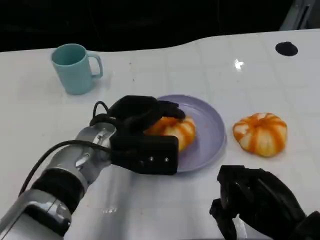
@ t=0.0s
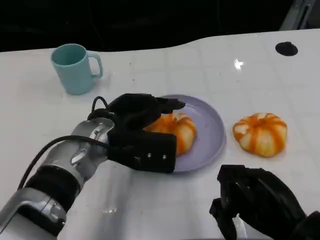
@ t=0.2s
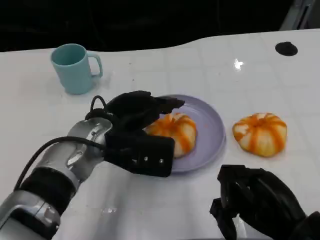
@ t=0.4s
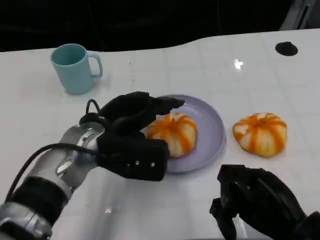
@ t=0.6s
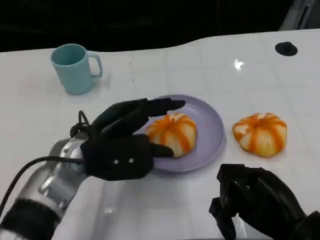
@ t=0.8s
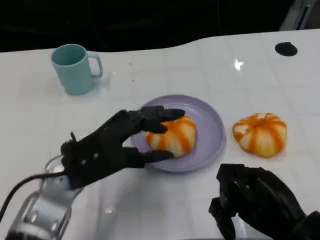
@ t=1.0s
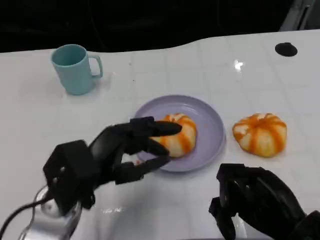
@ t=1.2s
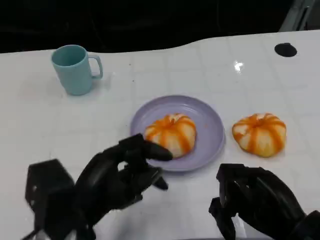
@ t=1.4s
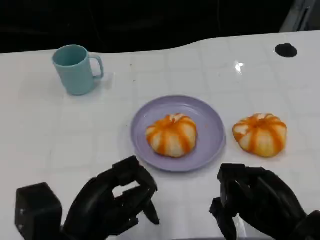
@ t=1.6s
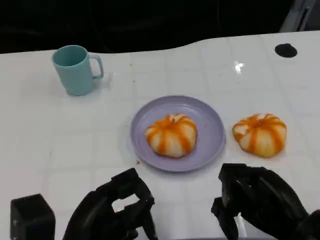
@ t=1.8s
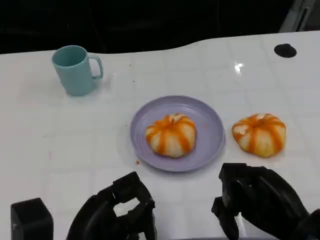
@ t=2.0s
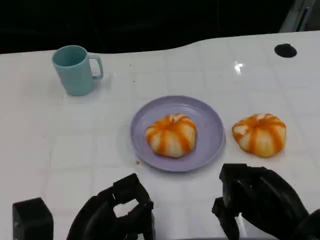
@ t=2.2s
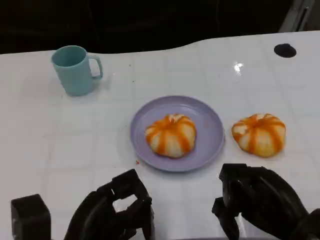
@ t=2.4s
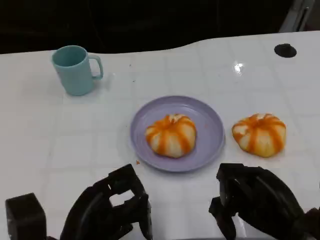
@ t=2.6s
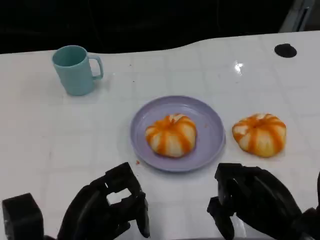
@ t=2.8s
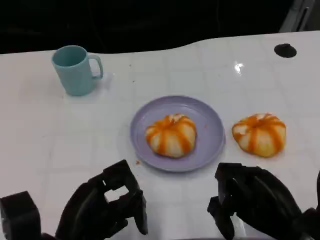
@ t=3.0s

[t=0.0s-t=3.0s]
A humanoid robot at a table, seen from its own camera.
Task of the whole recording: Grasp the bread from the table and place it into the plate.
t=0.0s to t=1.6s: The left hand travels backward and to the left by about 15 cm.
t=1.6s to t=3.0s: There are only small adjustments of the hands.

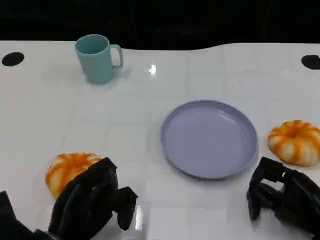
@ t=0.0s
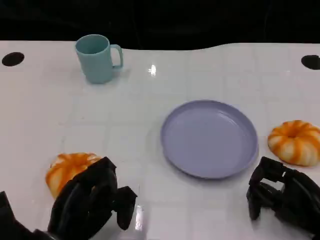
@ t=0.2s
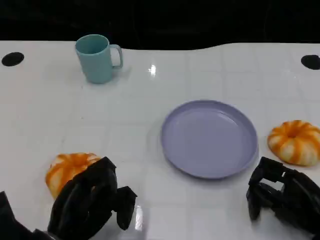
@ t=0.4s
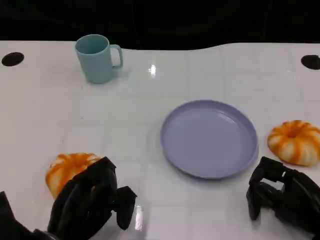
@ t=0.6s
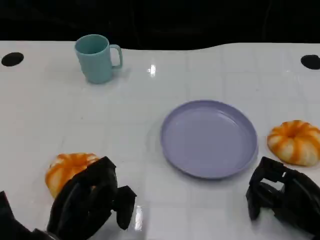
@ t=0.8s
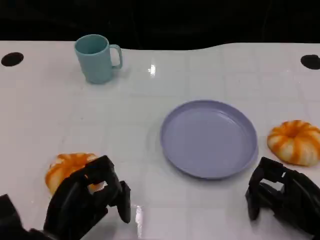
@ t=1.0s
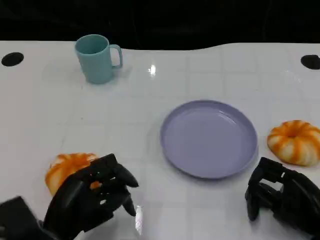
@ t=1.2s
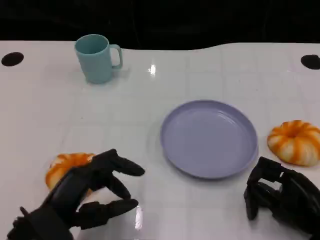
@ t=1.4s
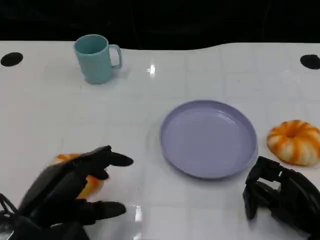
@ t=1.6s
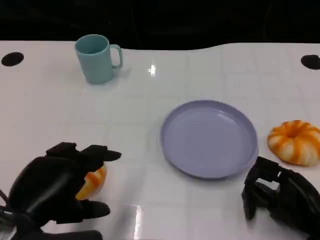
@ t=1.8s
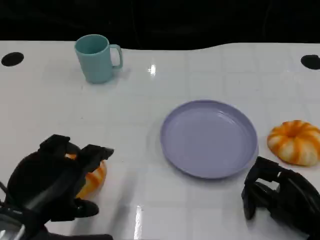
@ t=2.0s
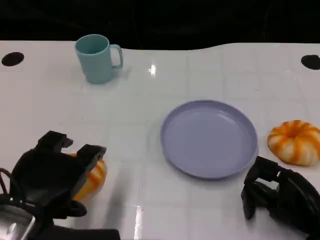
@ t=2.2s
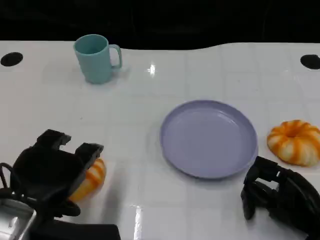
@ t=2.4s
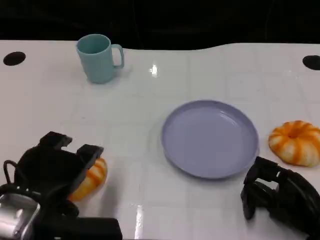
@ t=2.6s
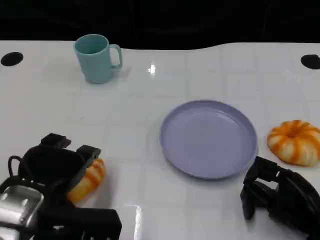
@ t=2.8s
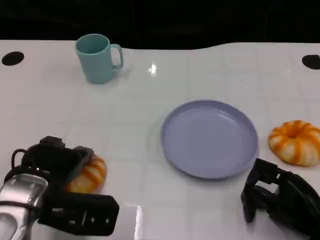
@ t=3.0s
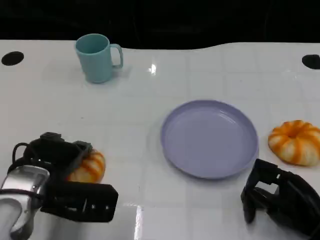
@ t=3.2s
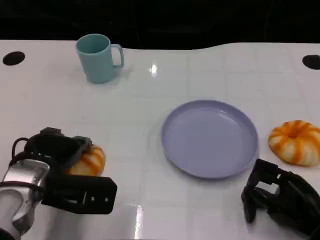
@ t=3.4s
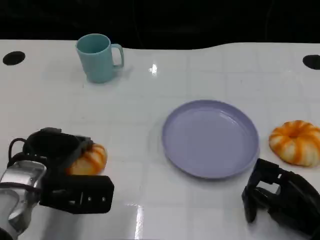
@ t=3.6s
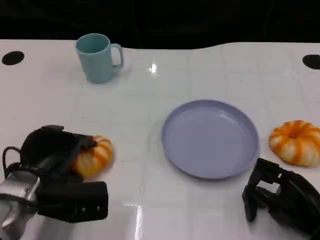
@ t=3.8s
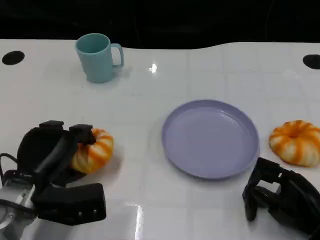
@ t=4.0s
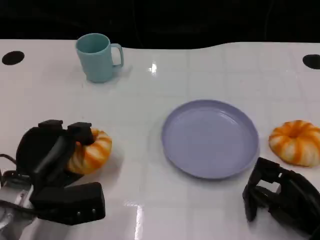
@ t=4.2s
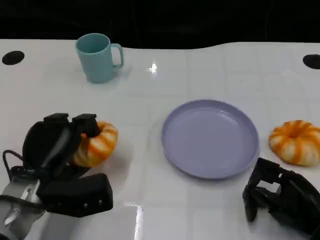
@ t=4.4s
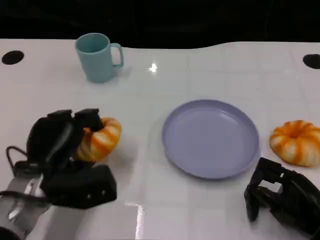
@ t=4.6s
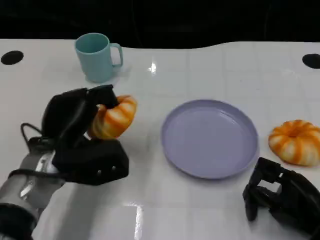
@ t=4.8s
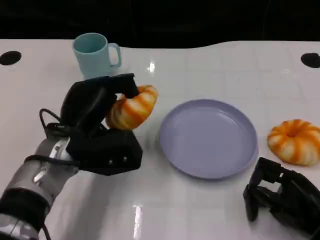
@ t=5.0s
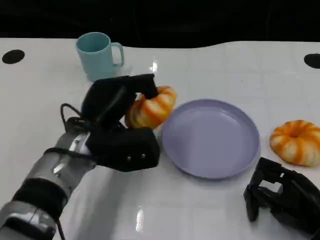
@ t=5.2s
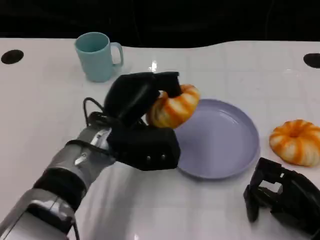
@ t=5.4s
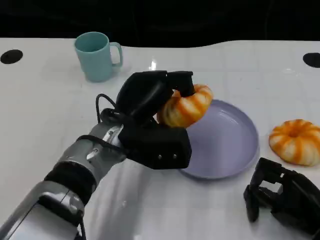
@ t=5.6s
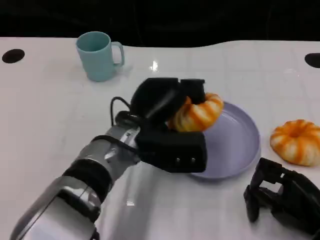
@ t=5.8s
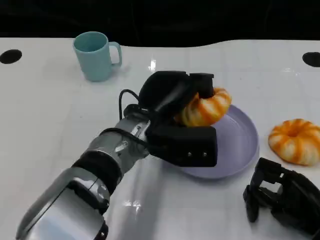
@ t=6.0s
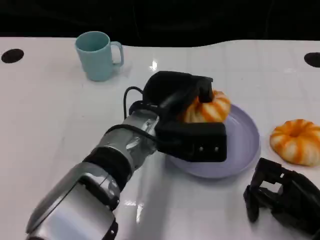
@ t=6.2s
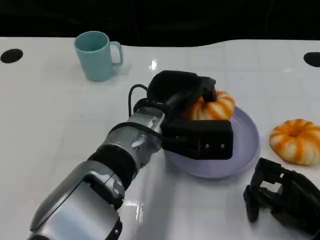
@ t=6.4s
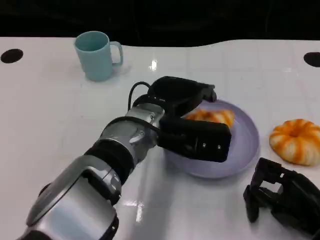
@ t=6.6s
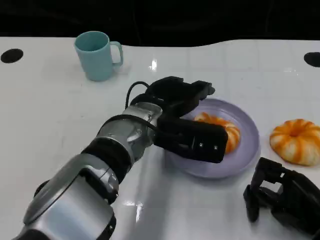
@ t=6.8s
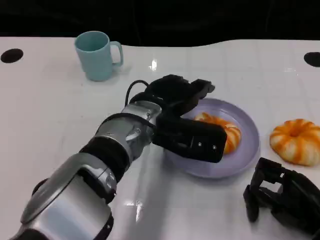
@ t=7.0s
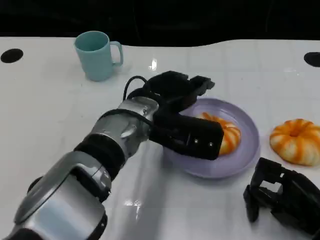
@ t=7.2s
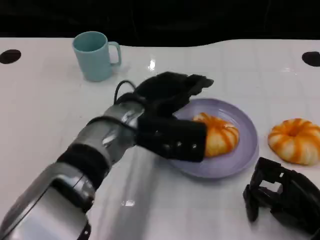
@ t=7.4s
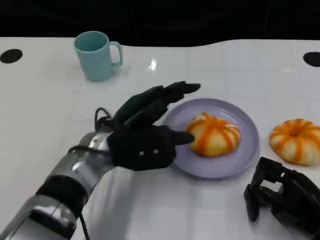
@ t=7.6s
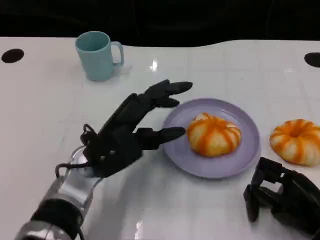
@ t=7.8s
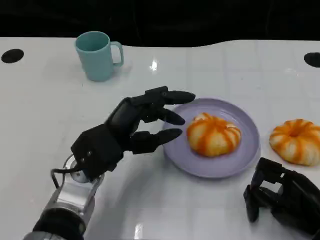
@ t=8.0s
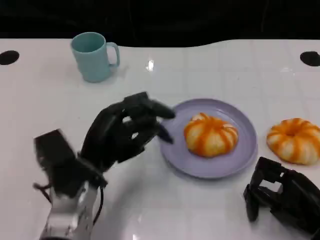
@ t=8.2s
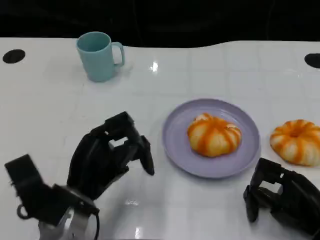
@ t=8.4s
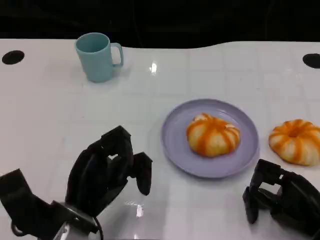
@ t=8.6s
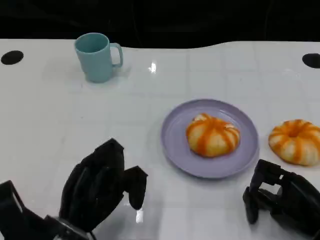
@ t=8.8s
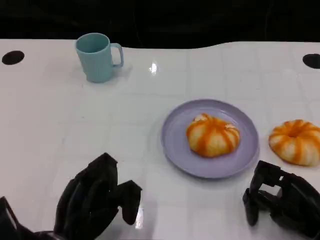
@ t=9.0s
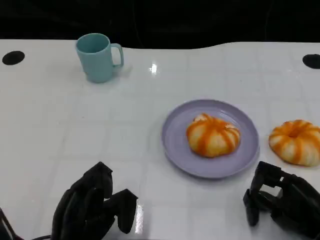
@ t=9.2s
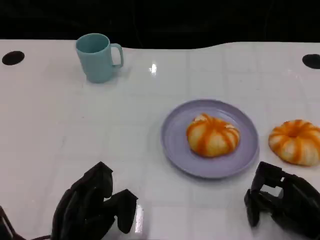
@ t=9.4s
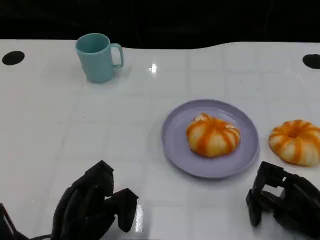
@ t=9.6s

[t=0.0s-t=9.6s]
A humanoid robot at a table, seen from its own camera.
Task of the whole recording: Grasp the bread from the table and place it into the plate.
t=0.0s to t=1.6s: The left hand heads upward, covering approximately 10 cm.
t=1.6s to t=3.2s: The left hand travels forward by some 10 cm.
t=4.8s to t=6.4s: The left hand heads to the right, covering approximately 15 cm.
t=6.4s to t=8.0s: The left hand is displaced to the left by approximately 10 cm.
t=8.0s to t=9.6s: The left hand is displaced backward, downward and to the left by approximately 15 cm.

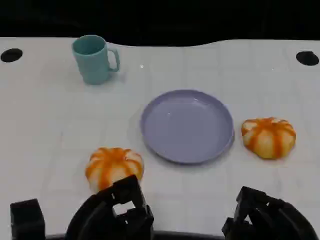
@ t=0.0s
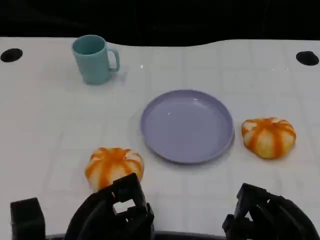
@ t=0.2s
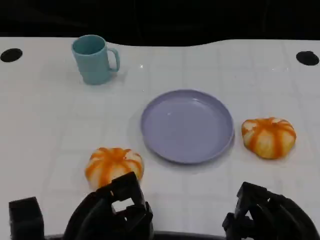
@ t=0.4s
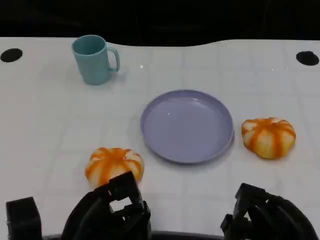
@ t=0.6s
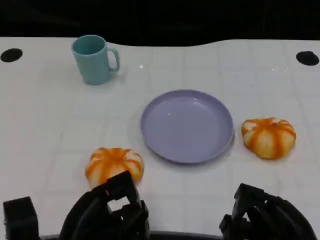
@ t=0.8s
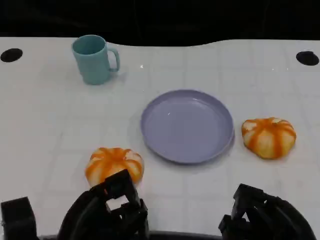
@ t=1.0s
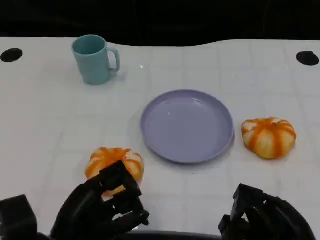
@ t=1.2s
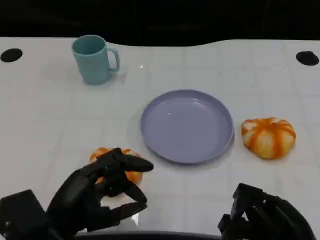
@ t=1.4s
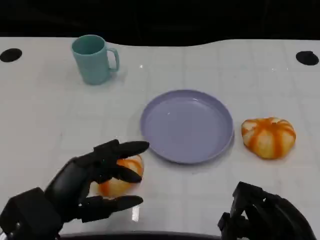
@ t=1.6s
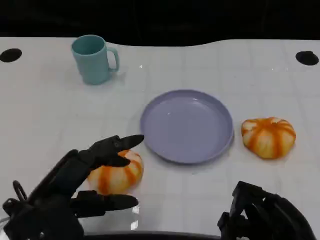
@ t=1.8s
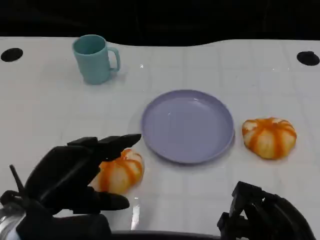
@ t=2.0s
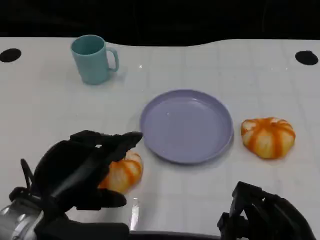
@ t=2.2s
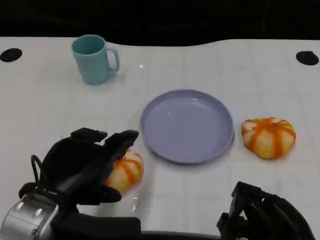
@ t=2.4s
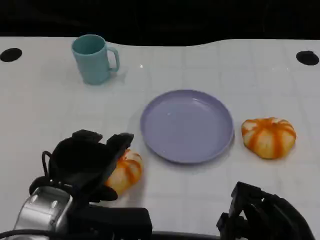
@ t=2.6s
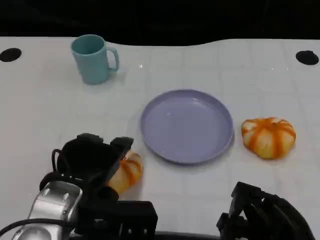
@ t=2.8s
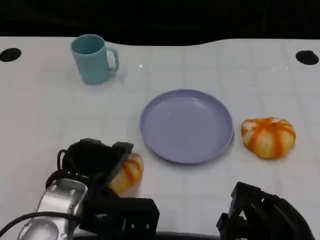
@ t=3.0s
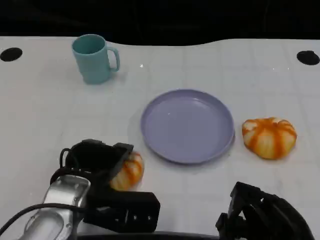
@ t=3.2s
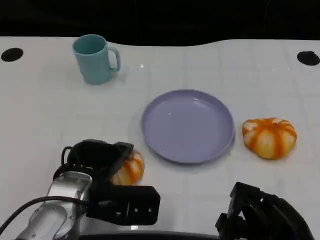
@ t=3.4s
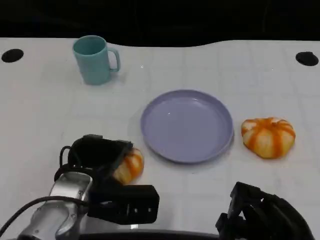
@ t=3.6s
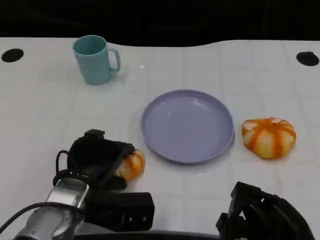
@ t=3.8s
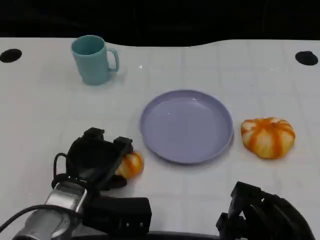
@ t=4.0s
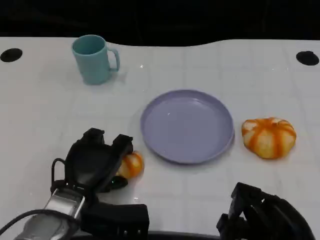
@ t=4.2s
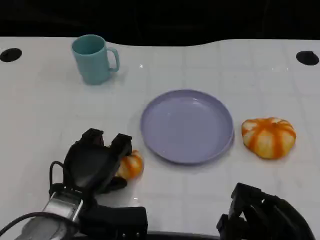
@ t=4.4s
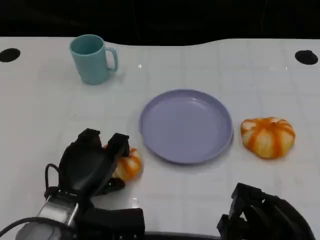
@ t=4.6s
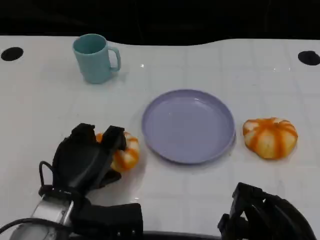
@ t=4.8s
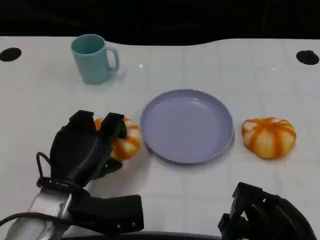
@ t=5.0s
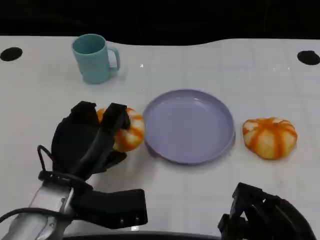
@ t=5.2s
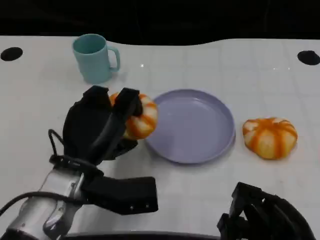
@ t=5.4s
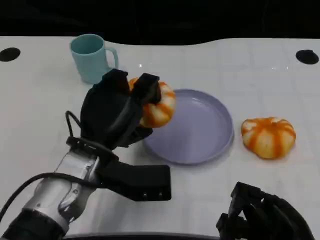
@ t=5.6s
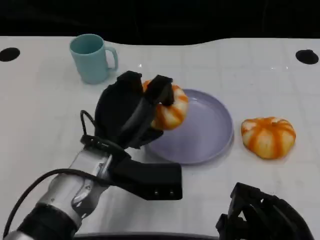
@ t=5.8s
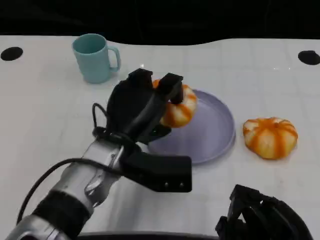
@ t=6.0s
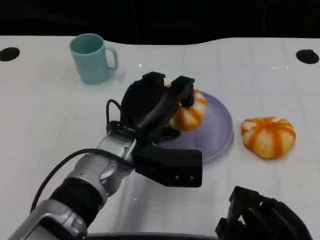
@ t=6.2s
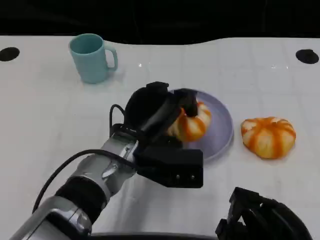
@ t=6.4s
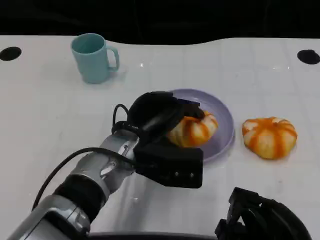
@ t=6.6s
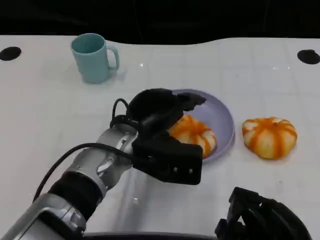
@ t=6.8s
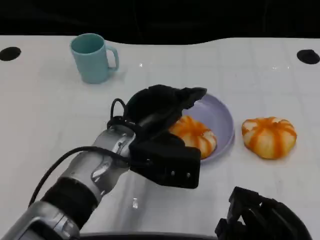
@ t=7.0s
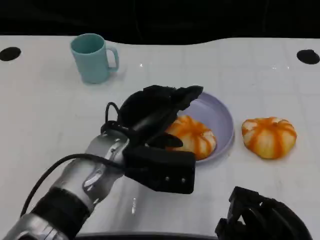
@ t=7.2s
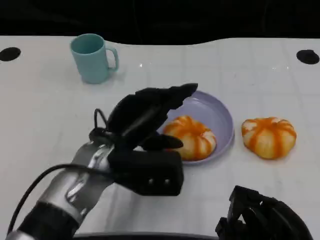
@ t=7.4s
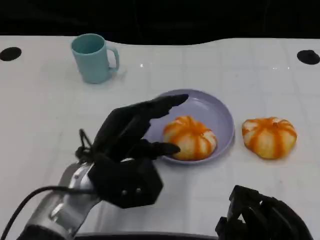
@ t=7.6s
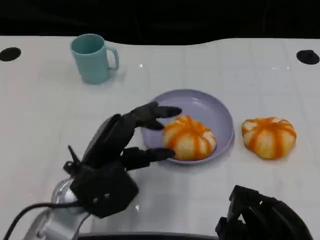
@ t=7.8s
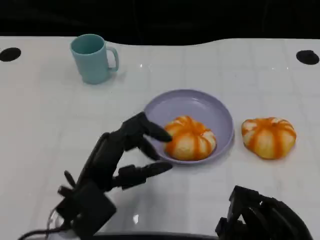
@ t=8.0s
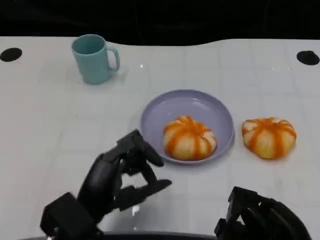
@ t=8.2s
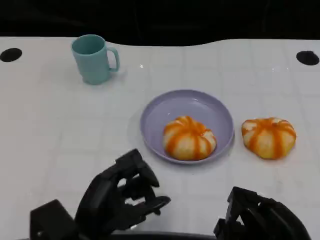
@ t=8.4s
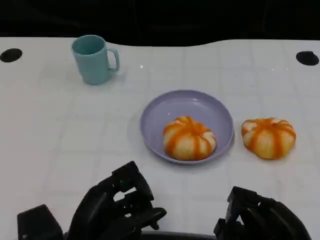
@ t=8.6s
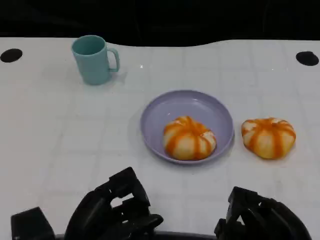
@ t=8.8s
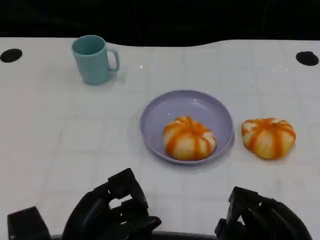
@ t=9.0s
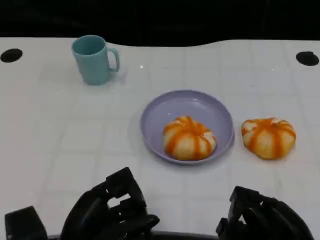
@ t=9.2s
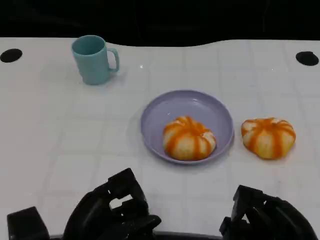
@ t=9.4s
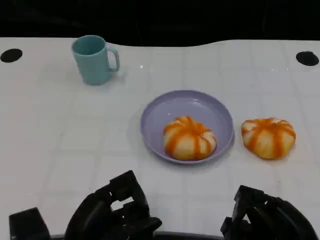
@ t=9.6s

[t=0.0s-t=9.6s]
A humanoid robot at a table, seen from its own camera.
Task of the whole recording: Grasp the bread from the table and place it into the plate.
t=0.0s to t=1.6s: The left hand is displaced upward by some 5 cm.
t=1.6s to t=3.2s: The left hand heads forward and to the right, covering approximately 10 cm.
t=4.8s to t=6.4s: The left hand moves to the right and forward, some 10 cm.
t=6.4s to t=8.0s: The left hand heads backward and to the left, covering approximately 10 cm.
t=8.0s to t=9.6s: The left hand travels backward by about 5 cm.
